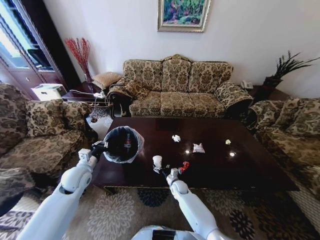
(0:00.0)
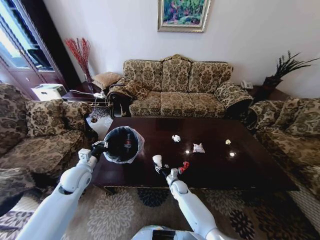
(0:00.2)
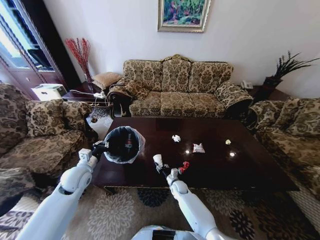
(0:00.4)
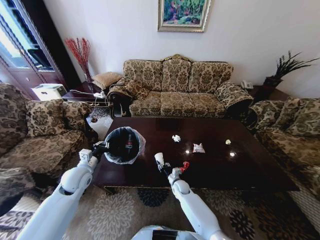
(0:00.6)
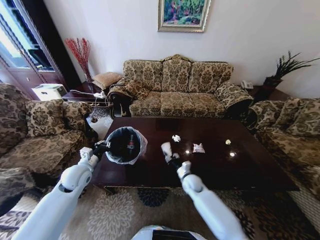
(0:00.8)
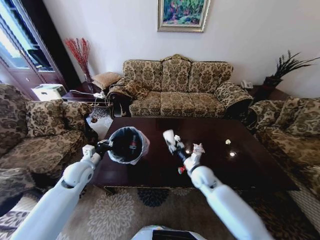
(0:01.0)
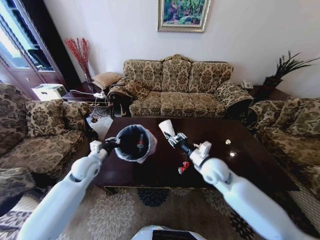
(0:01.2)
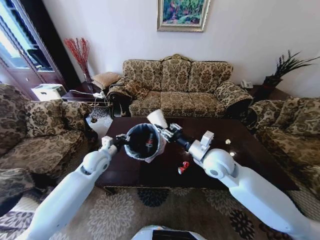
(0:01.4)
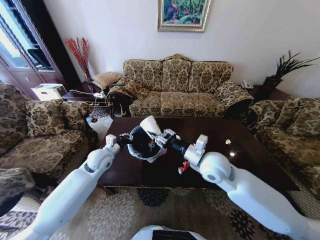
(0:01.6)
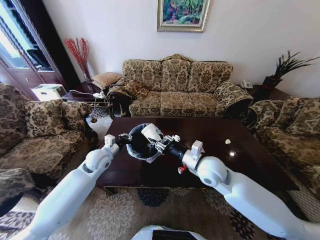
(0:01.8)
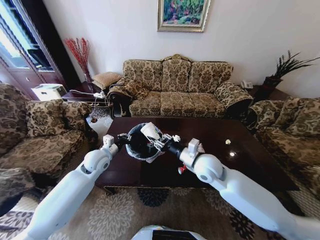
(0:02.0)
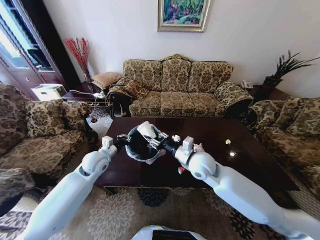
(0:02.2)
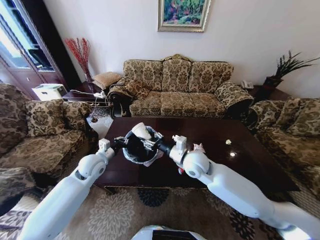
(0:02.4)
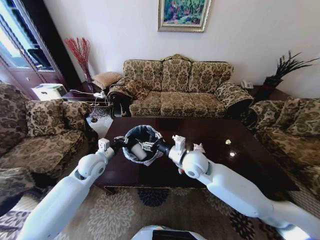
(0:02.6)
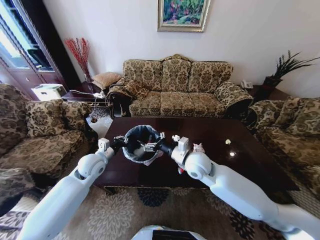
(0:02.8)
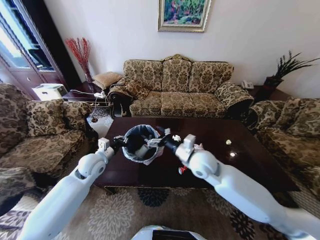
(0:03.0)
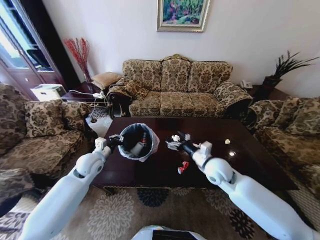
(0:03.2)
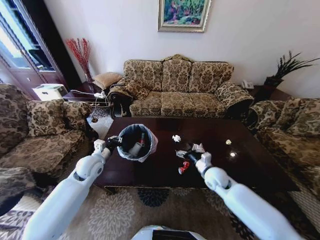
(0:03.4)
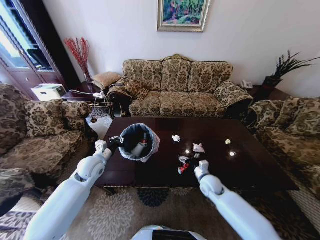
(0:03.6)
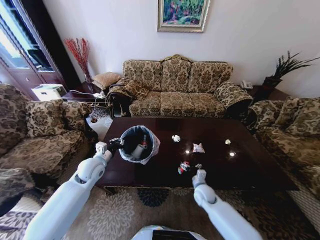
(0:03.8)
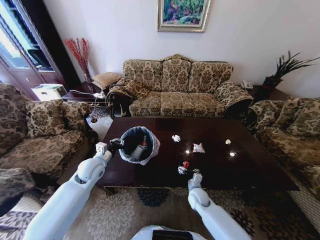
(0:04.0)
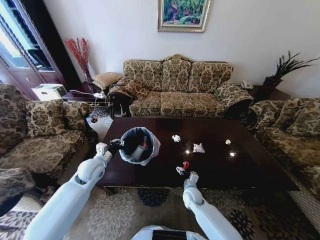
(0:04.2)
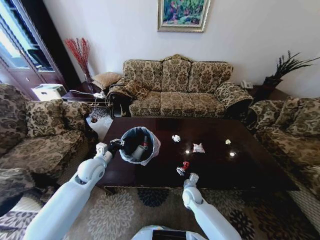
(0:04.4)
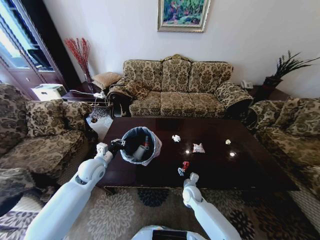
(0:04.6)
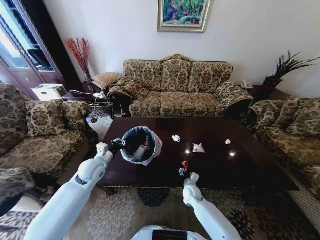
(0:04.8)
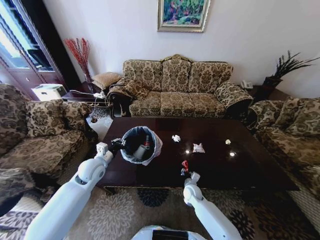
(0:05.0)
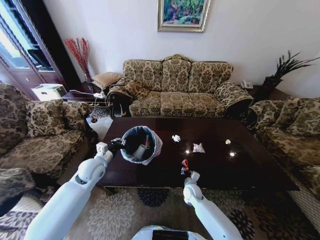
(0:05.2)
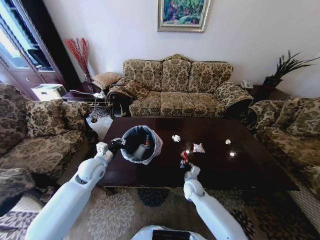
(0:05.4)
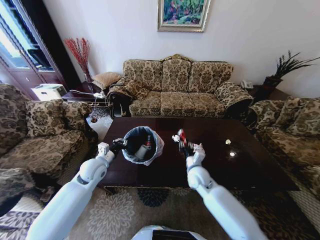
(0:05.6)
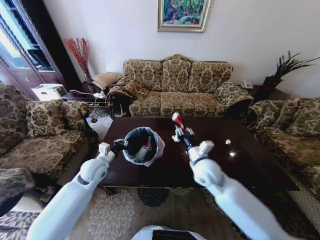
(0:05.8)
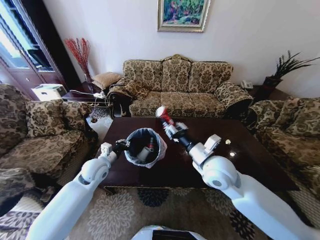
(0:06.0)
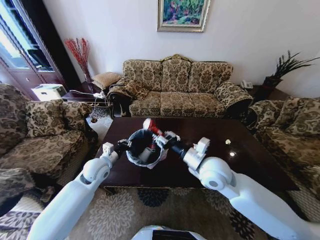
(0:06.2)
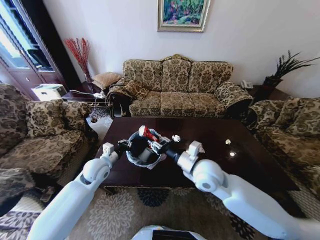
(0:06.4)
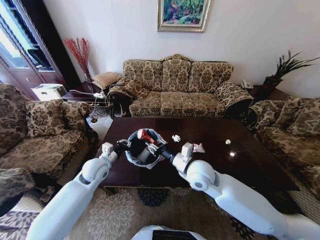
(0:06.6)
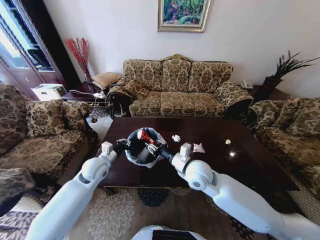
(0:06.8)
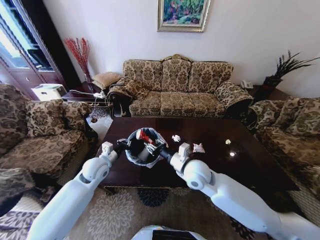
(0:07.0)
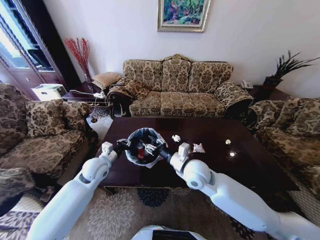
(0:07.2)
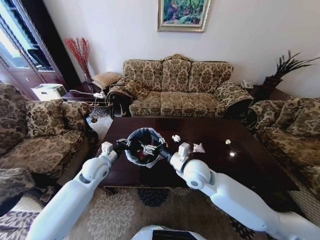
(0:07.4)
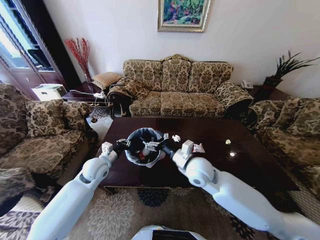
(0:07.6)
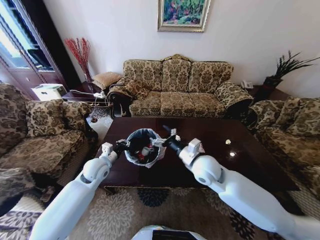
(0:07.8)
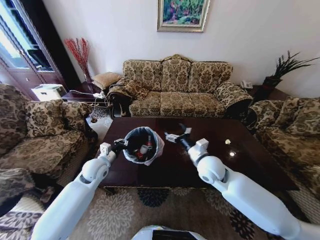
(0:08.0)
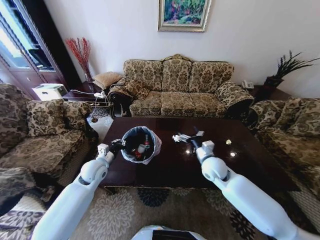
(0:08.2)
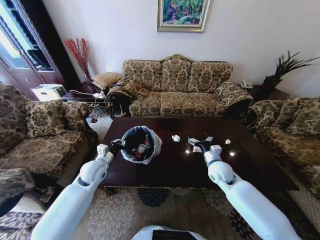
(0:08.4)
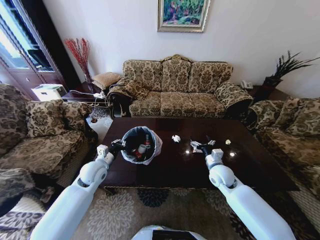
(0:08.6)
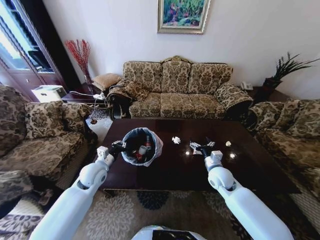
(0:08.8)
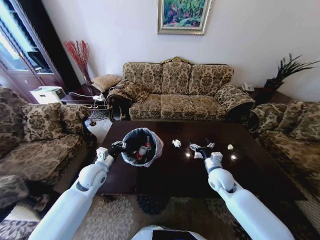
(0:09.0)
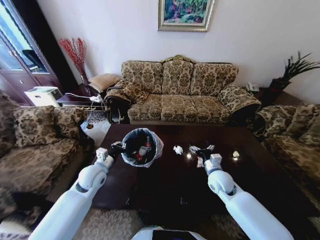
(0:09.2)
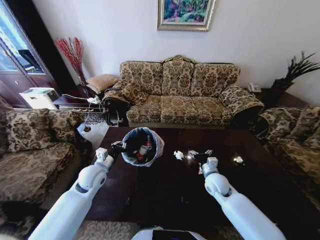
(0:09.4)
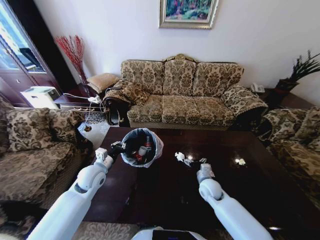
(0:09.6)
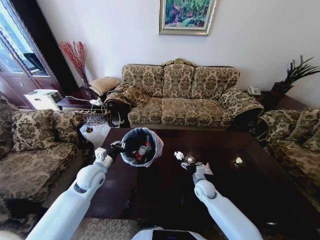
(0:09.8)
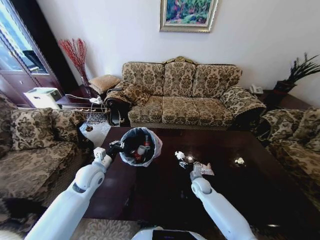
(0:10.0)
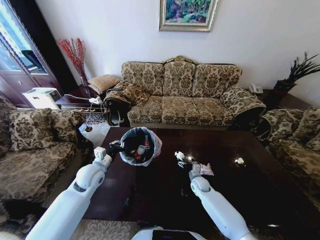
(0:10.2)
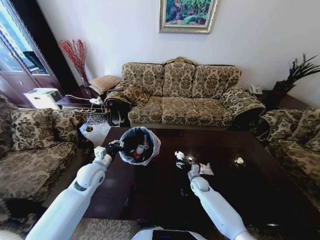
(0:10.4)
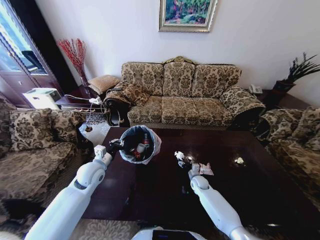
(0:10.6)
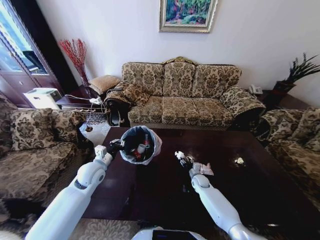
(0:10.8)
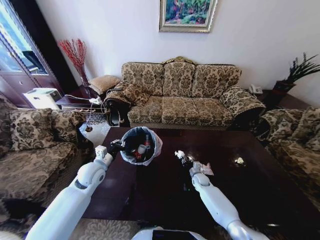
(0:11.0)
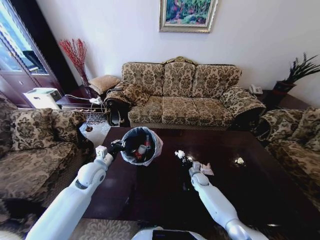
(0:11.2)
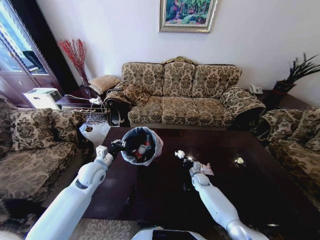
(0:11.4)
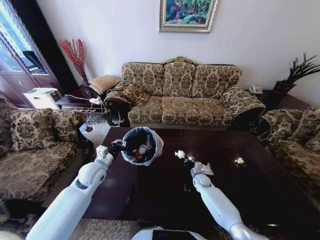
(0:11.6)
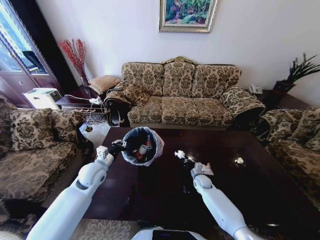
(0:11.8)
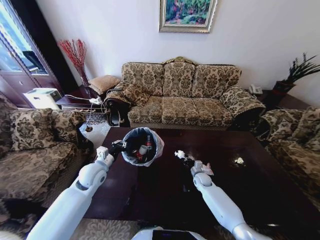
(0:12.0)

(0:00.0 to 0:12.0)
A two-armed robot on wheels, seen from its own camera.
Task of the whole recording: Move to the front of the table and place the trash on the table into the trash bin.
0:00.0 - 0:01.6: The right gripper moves upward, about 35 cm, and closes its fingers. Meanwhile the left gripper is displaced to the right and forward by approximately 10 cm.
0:01.6 - 0:03.0: The right gripper opens up.
0:03.0 - 0:04.4: The right gripper shifts some 30 cm downward.
0:04.4 - 0:06.0: The right gripper goes roughly 35 cm upward, and closes.
0:06.0 - 0:07.6: The right gripper ends up some 5 cm from where it was, and opens up.
0:07.6 - 0:09.0: The right gripper is displaced to the right and downward by roughly 15 cm.
0:09.0 - 0:10.4: The right gripper moves downward, some 20 cm.
0:10.4 - 0:12.0: The right gripper closes its fingers.

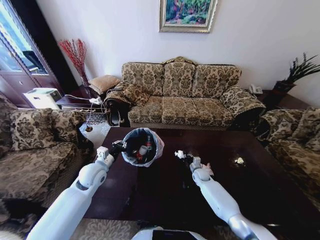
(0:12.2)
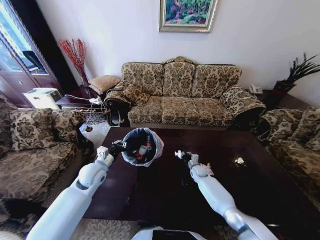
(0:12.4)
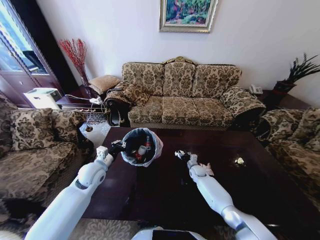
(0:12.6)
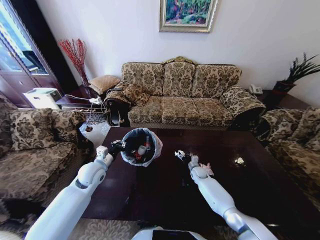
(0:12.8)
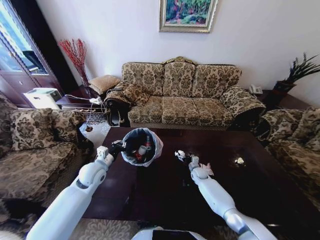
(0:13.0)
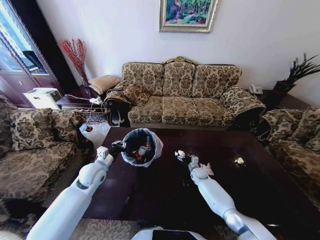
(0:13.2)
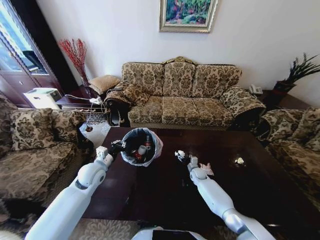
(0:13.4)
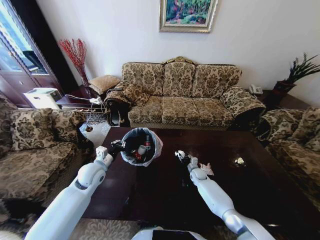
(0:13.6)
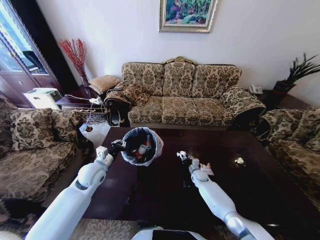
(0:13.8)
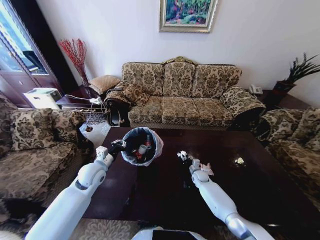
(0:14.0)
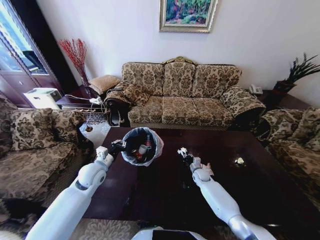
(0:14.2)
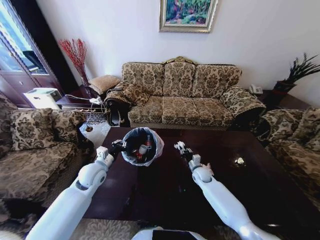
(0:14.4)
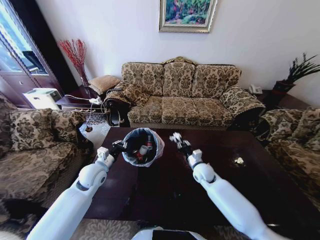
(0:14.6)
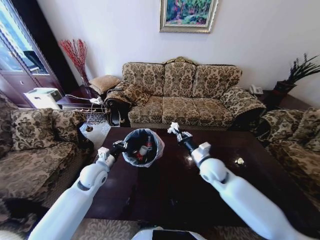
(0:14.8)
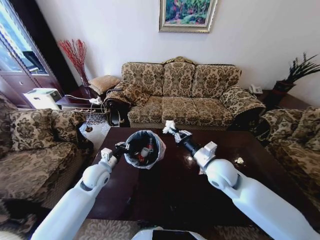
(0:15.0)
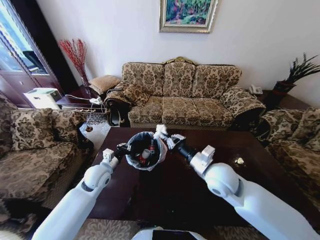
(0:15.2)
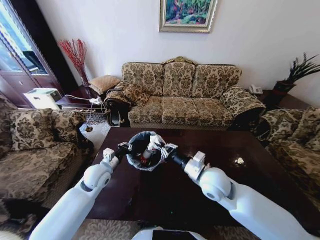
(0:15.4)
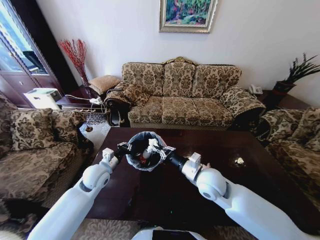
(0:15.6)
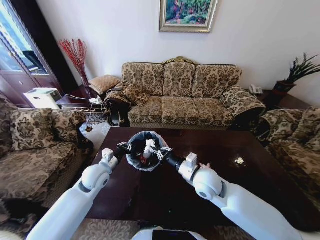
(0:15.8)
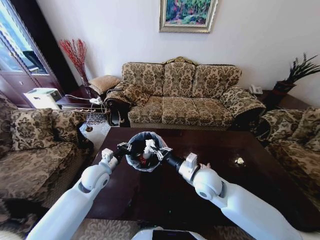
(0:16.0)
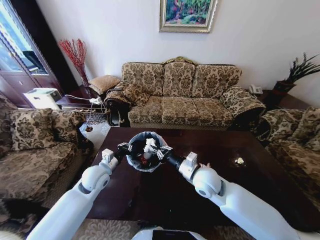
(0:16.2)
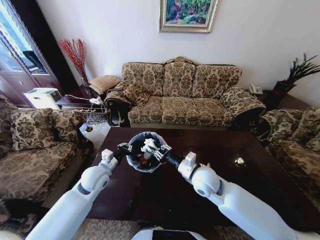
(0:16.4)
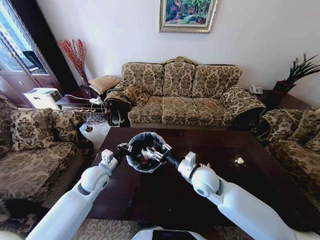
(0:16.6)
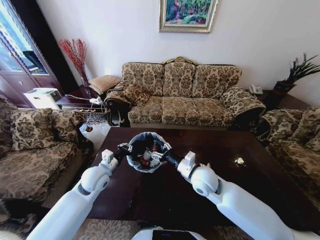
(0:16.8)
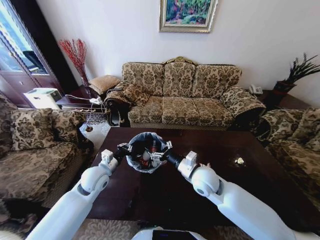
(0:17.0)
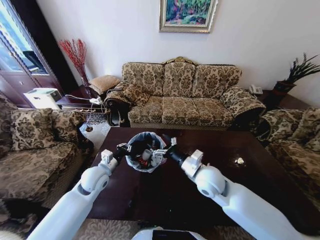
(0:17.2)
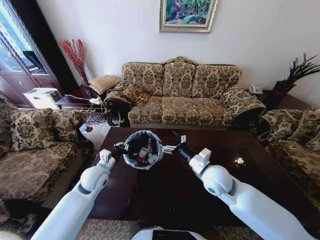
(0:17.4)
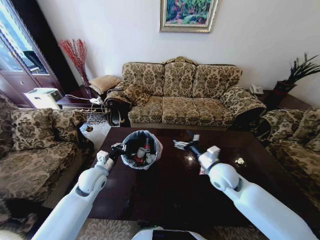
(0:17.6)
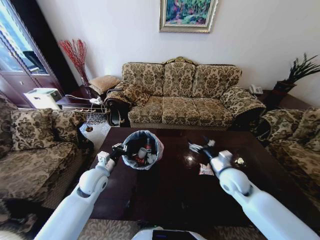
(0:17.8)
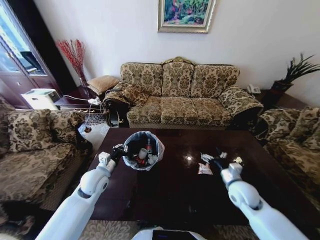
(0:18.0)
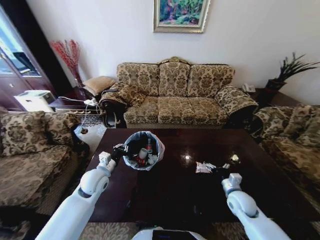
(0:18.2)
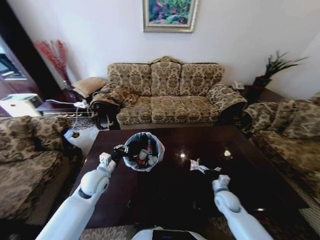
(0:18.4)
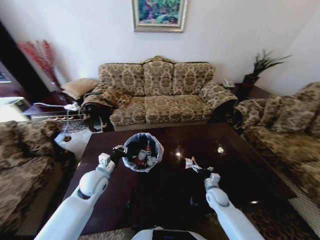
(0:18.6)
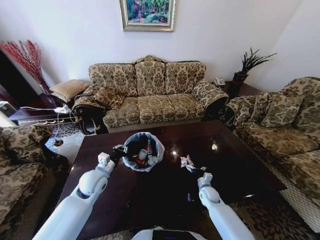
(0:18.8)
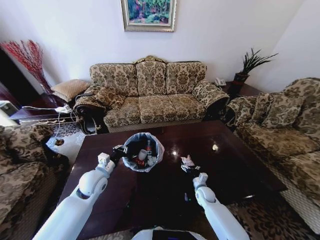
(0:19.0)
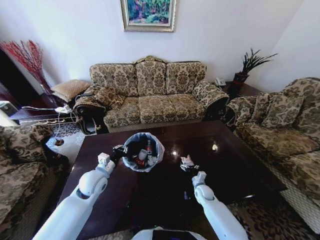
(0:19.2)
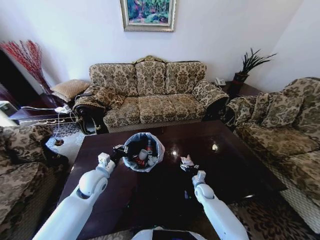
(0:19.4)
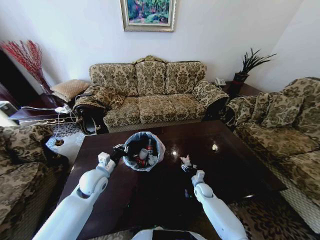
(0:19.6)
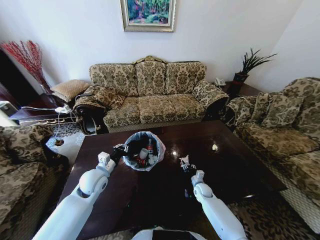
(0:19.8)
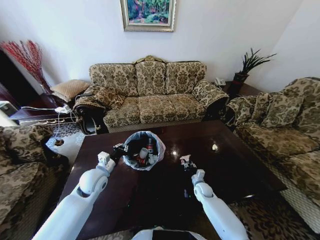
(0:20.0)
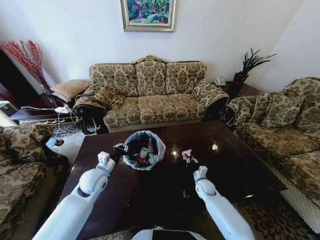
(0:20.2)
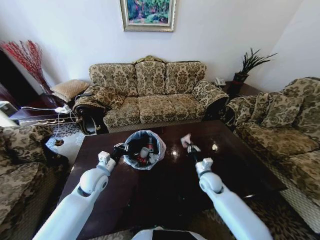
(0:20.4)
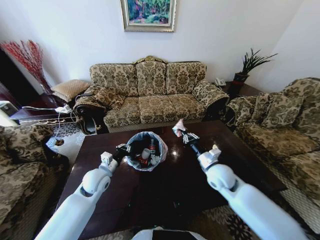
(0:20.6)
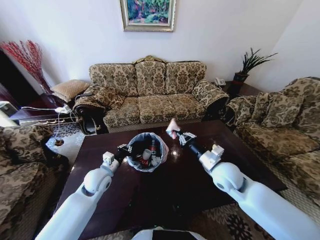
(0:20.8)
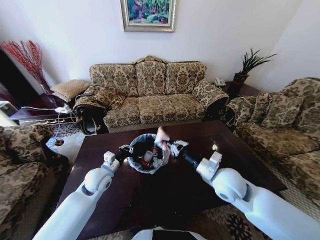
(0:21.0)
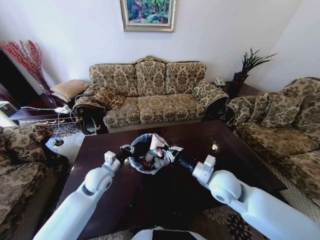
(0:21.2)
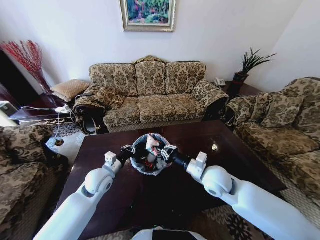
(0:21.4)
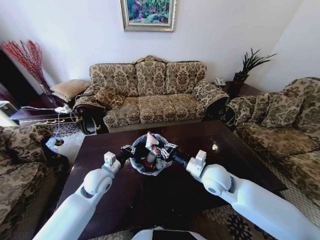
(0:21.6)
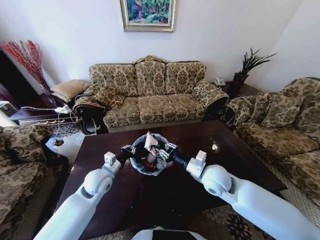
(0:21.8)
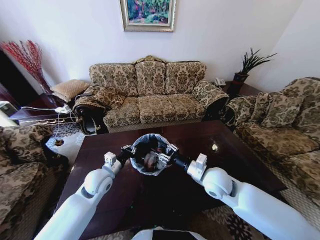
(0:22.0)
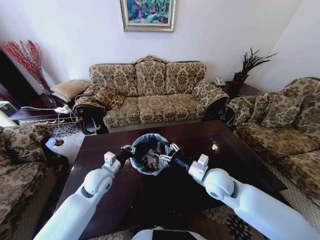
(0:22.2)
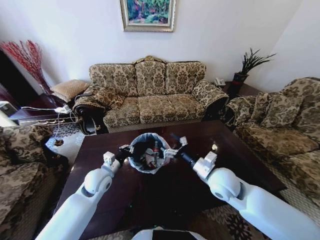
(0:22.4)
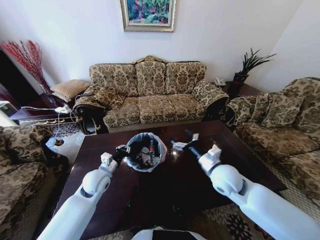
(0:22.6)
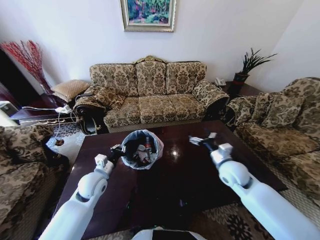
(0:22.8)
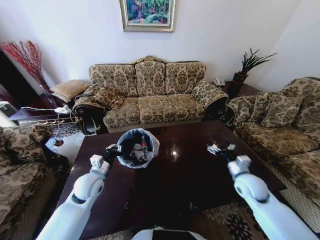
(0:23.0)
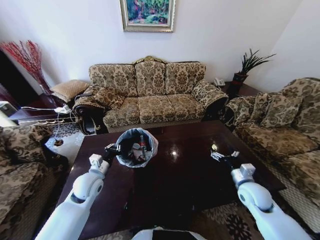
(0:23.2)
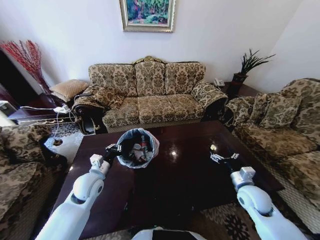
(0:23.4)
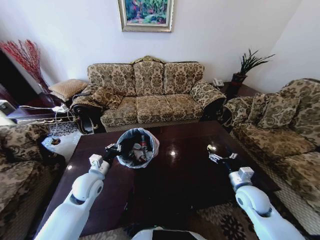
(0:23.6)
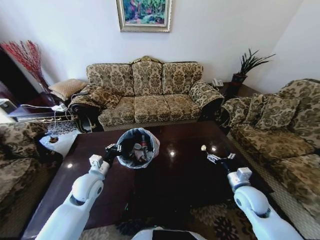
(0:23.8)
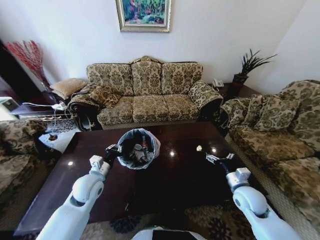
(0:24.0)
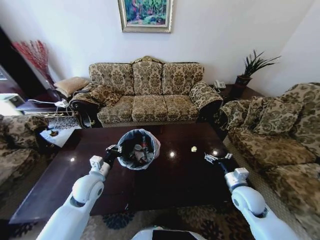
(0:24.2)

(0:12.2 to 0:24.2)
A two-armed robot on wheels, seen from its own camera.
Task of the whole recording: Move to the front of the table and place the trash on the table into the trash bin.
0:12.2 - 0:13.8: The right gripper opens, then closes once more.
0:13.8 - 0:15.2: The right gripper is displaced upward and backward by roughly 35 cm.
0:15.2 - 0:16.6: The right gripper travels downward by about 5 cm, and opens up.
0:16.6 - 0:18.2: The right gripper travels to the right and downward by about 25 cm, and opens up.
0:18.2 - 0:19.8: The right gripper heads downward, to the left and forward, covering about 20 cm, and closes.
0:19.8 - 0:21.2: The right gripper travels upward by about 30 cm, and closes.
0:21.2 - 0:22.6: The right gripper opens up.
0:22.6 - 0:24.2: The right gripper moves to the right and downward, some 15 cm.
